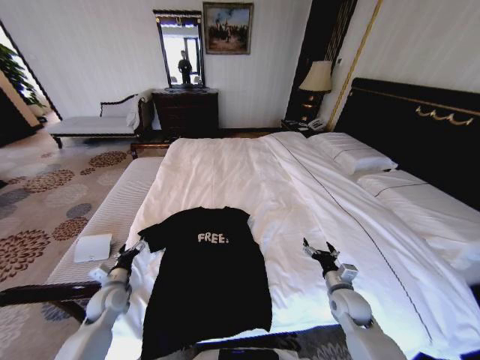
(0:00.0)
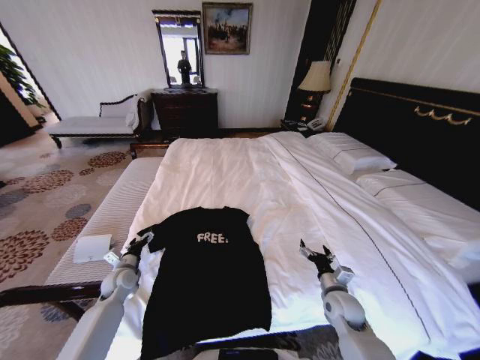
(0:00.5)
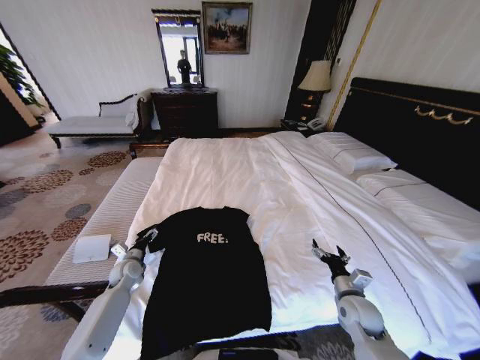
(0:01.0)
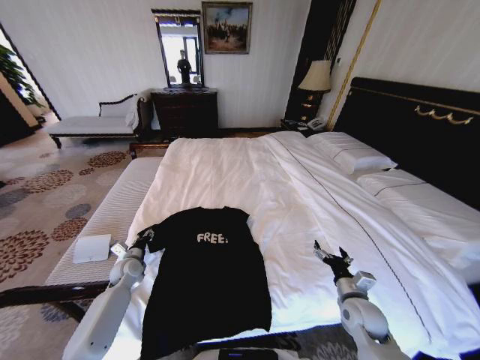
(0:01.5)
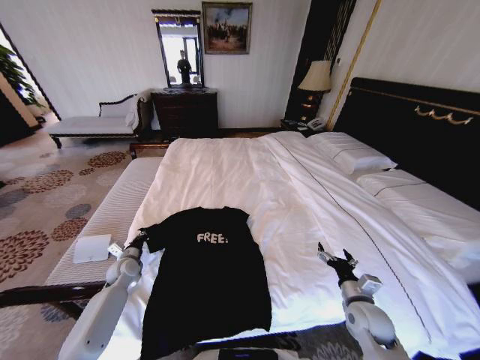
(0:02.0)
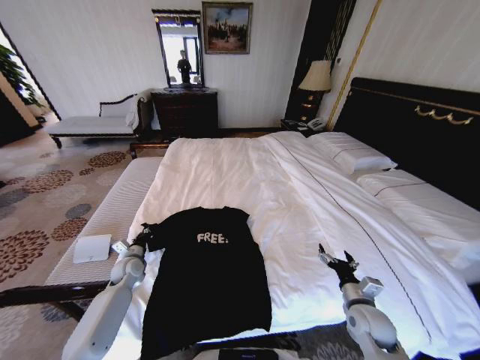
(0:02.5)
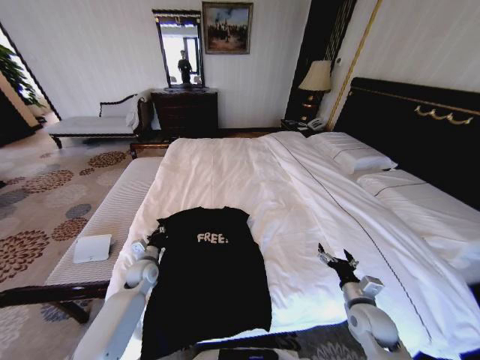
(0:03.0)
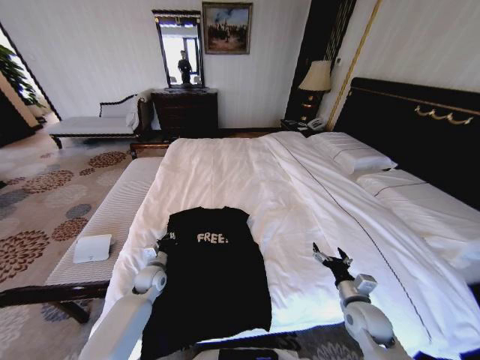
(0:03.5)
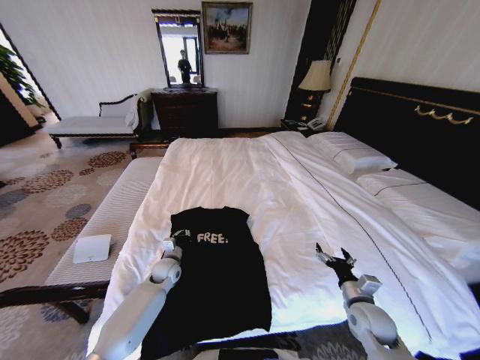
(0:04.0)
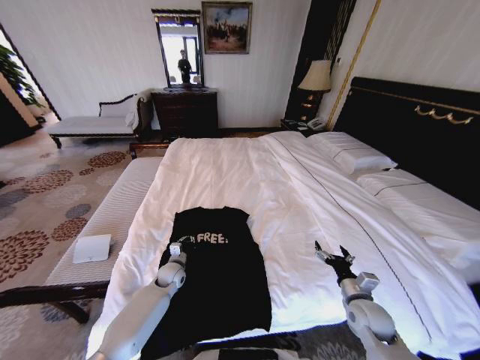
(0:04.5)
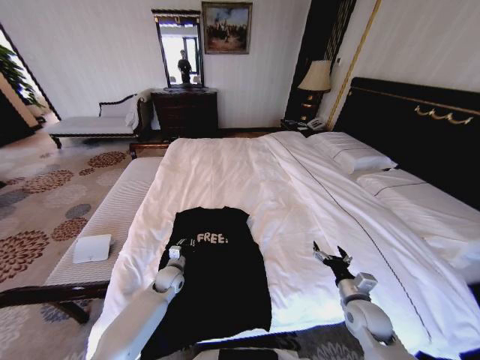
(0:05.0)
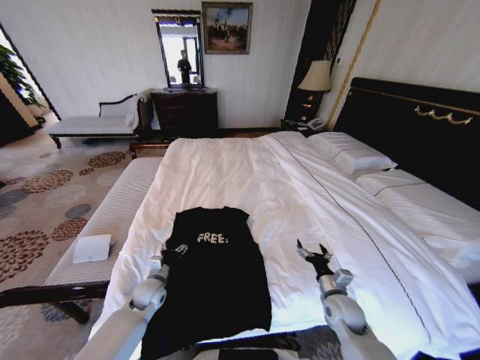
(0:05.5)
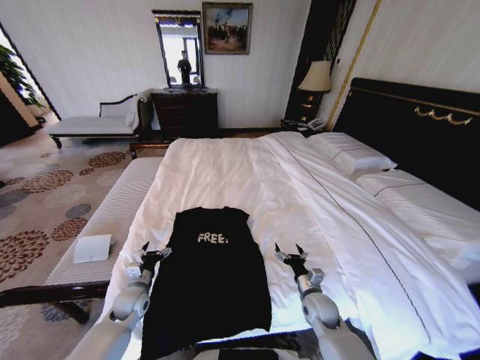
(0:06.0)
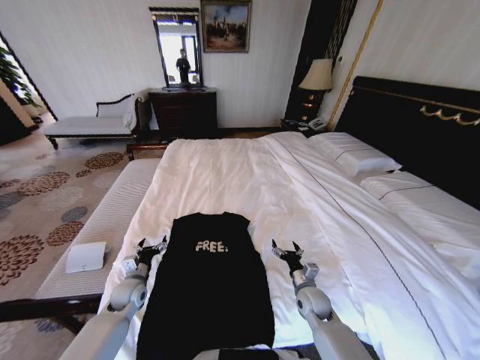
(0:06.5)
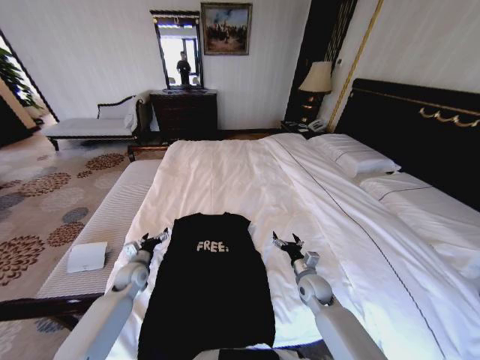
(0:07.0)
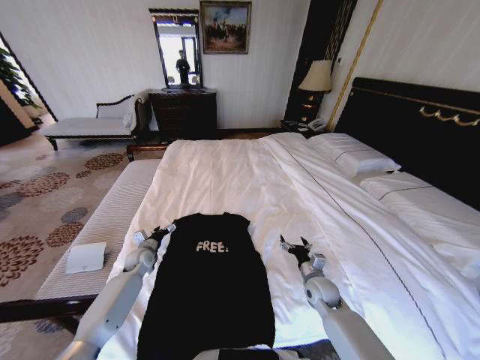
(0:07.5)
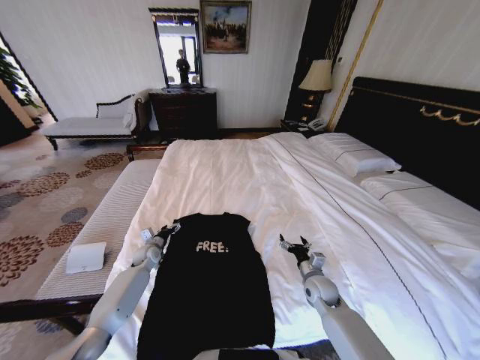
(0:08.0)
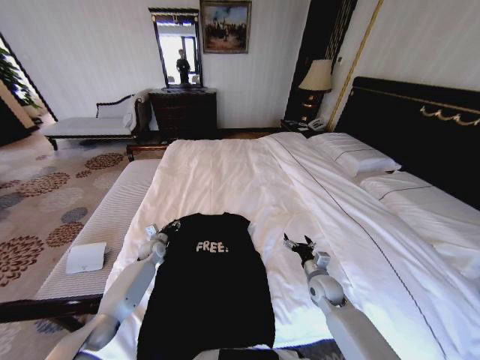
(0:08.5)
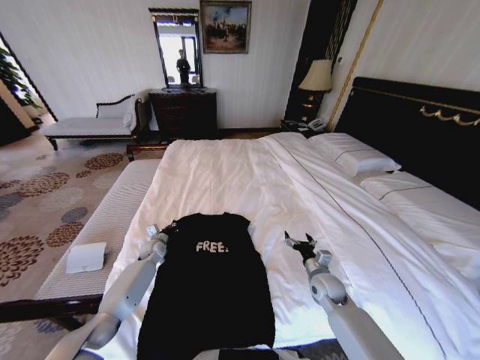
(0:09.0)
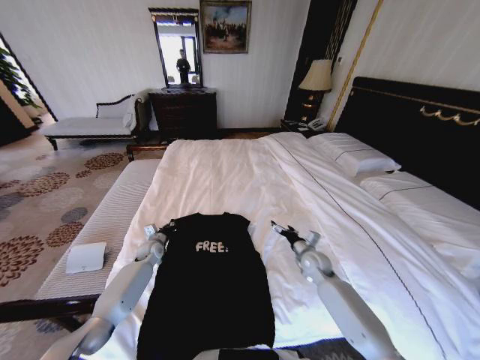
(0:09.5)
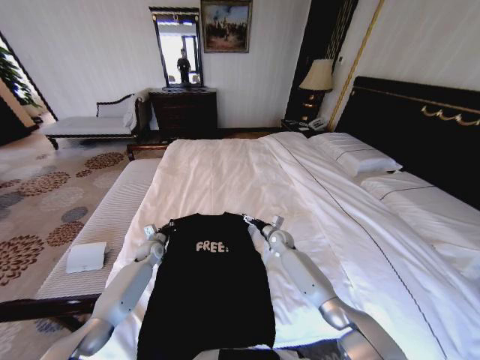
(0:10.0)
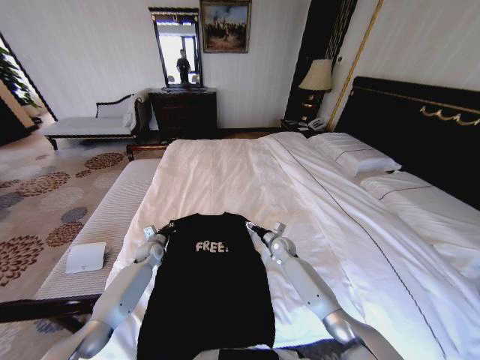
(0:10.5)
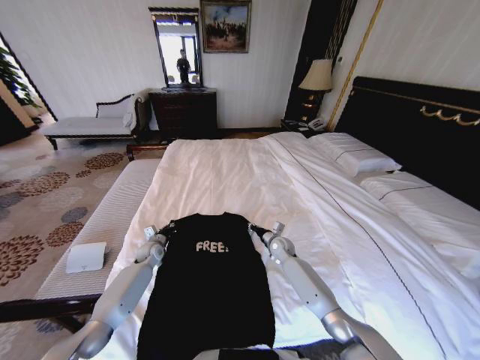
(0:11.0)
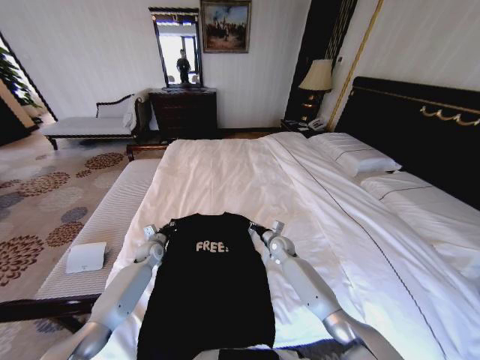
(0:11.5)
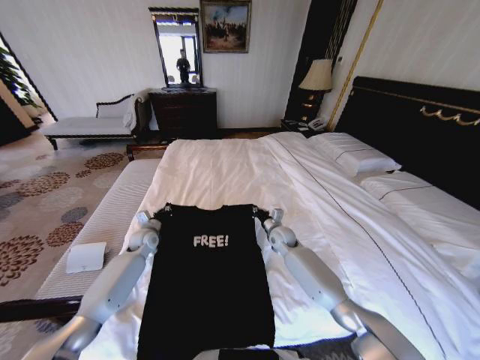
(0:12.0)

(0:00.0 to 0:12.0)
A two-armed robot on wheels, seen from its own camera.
Task of the whole recording: Fold the clothes on the bed.
0:00.0 - 0:02.0: The left gripper heads forward, covering approximately 10 cm, and closes. Meanwhile the right gripper moves roughly 5 cm.
0:02.0 - 0:04.0: The left gripper goes some 15 cm to the right.
0:04.0 - 0:06.0: The right gripper moves to the left and downward, some 10 cm; the left gripper travels backward and to the left by approximately 15 cm, and opens.
0:06.0 - 0:08.0: The right gripper heads forward, covering some 5 cm, while the left gripper moves forward, approximately 15 cm.
0:08.0 - 0:10.0: The right gripper moves forward and to the left, roughly 20 cm; the left gripper closes up.
0:10.0 - 0:12.0: The left gripper heads upward, covering some 10 cm. Meanwhile the right gripper shifts by some 5 cm, and closes up.

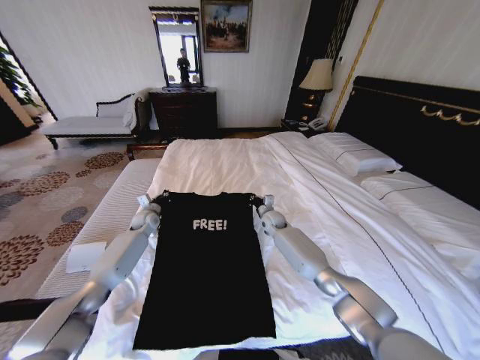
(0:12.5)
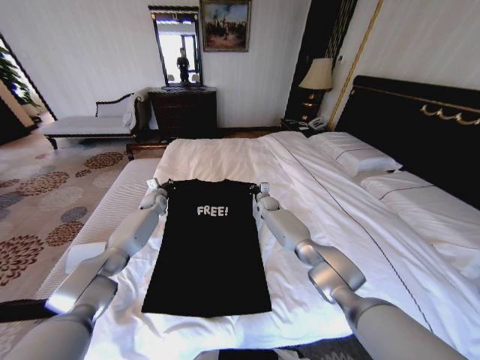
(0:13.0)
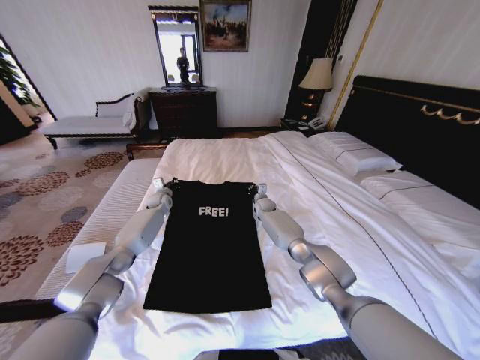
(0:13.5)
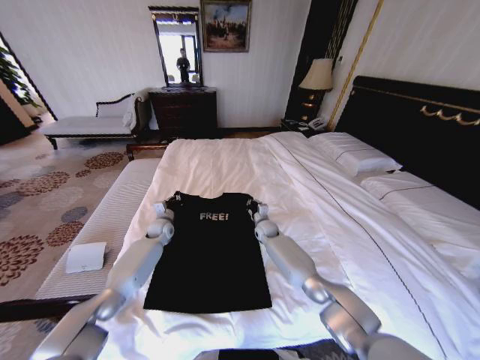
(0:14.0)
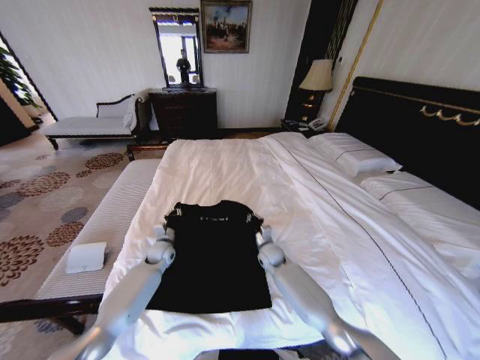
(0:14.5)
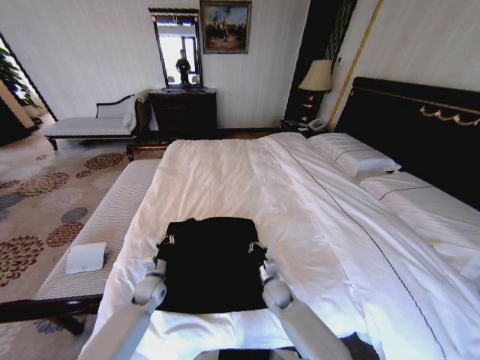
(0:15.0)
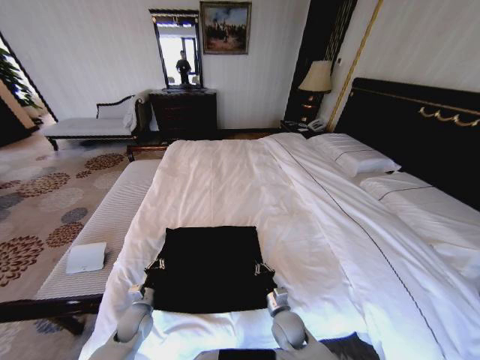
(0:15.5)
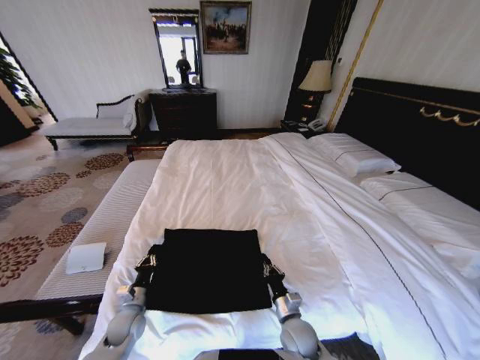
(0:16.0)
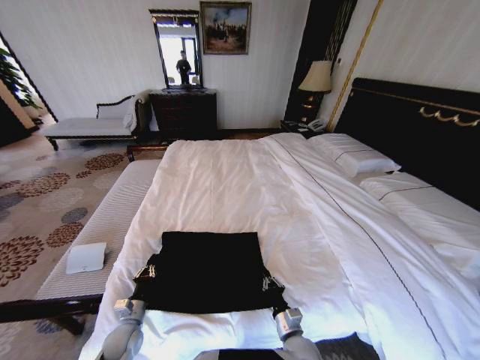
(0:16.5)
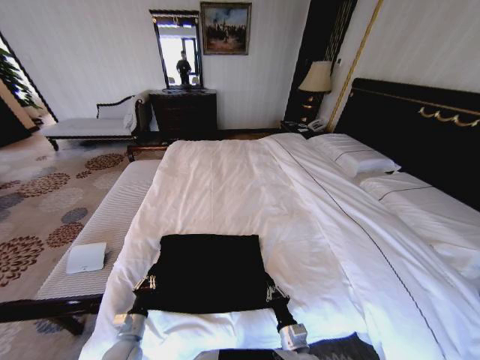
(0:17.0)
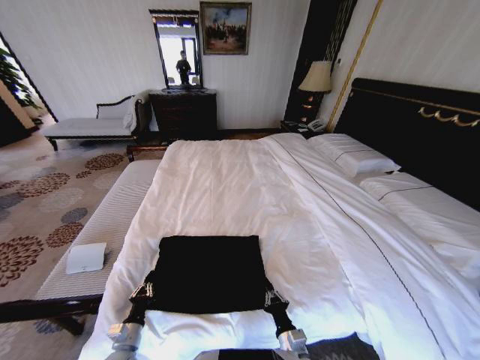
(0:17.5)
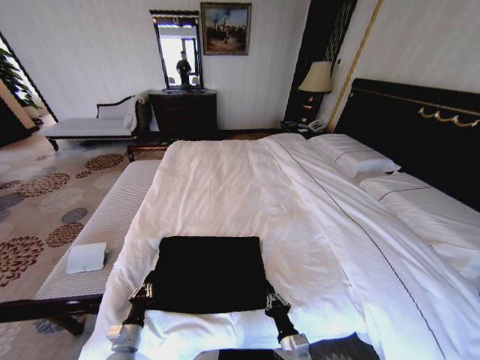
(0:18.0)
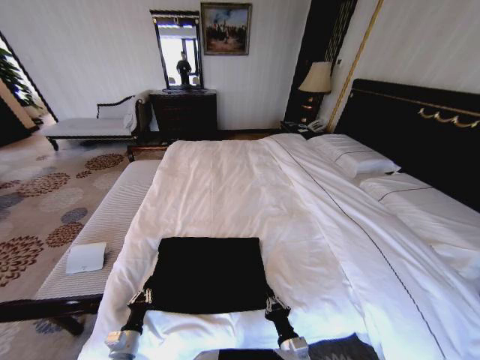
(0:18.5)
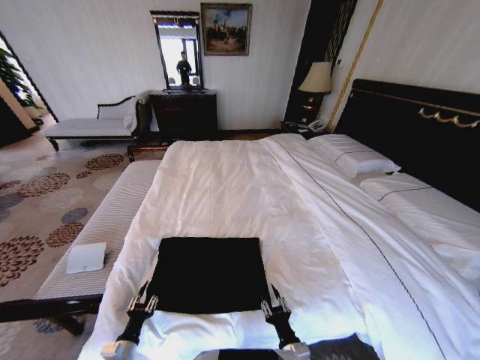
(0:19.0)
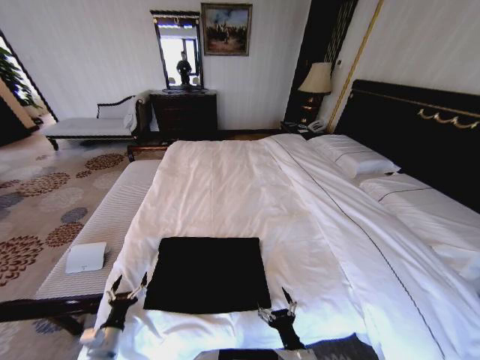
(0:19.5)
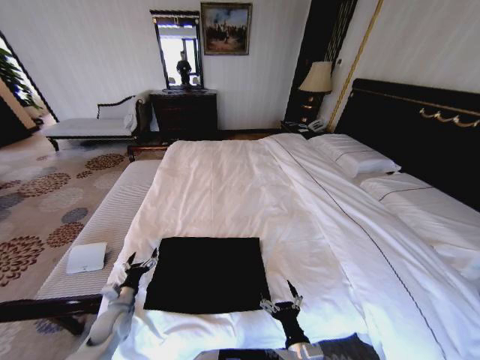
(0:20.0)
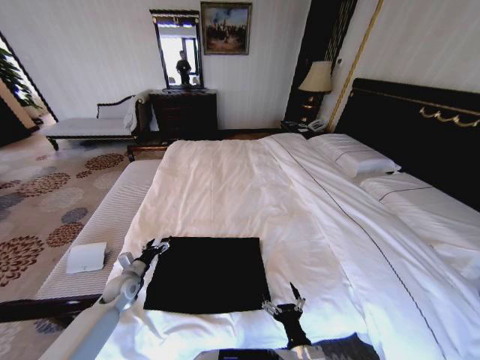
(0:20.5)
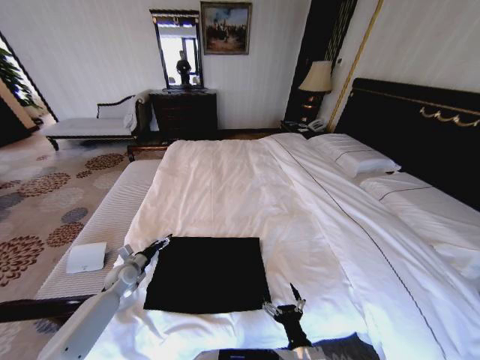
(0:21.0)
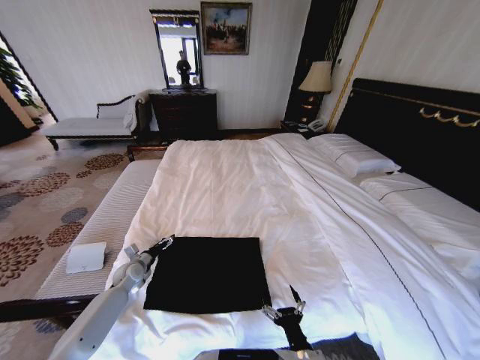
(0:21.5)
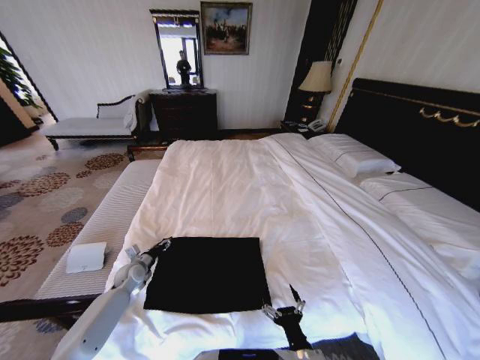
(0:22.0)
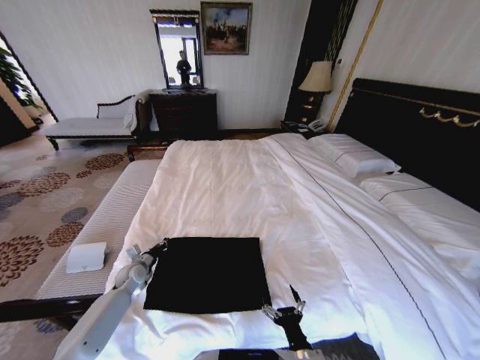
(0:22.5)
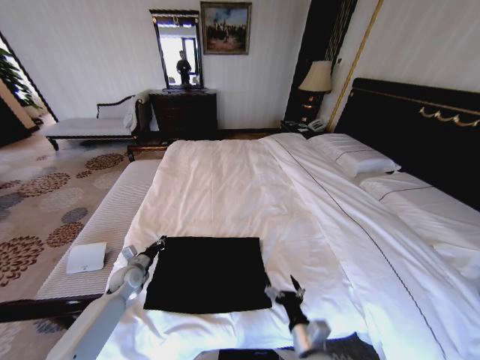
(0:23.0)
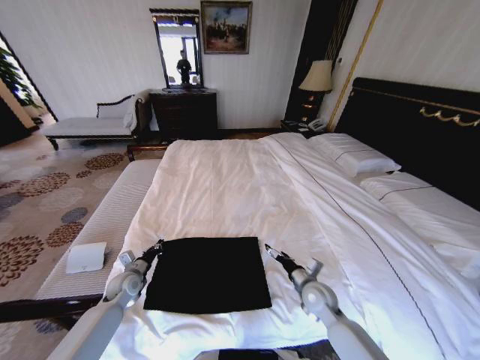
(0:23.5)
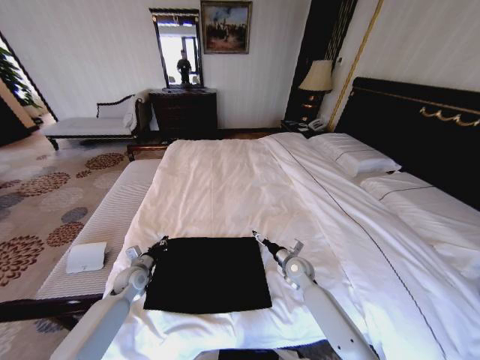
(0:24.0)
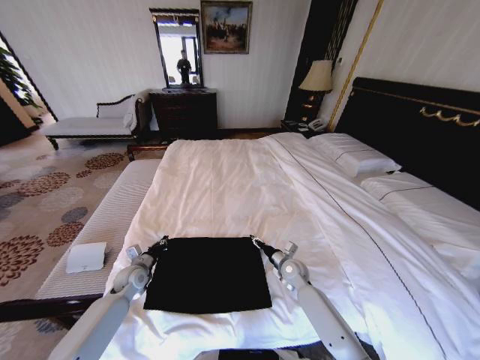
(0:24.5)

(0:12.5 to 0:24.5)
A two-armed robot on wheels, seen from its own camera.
Task of the whole recording: Fold the clothes on the bed.
0:12.5 - 0:14.5: The left gripper travels backward, downward and to the right by some 15 cm; the right gripper moves backward and downward, about 15 cm.
0:14.5 - 0:16.5: The grippers both shift backward by about 25 cm.
0:16.5 - 0:18.5: The two grippers go some 5 cm backward.
0:18.5 - 0:20.5: The left gripper goes about 20 cm forward, and opens, while the right gripper opens up.
0:20.5 - 0:22.5: The left gripper closes its fingers.
0:22.5 - 0:24.5: The right gripper travels forward by approximately 30 cm.

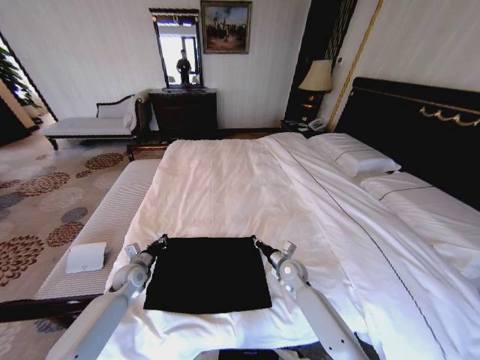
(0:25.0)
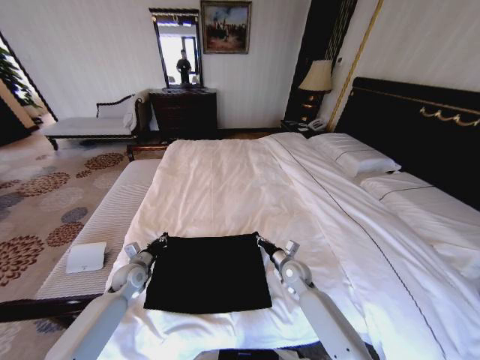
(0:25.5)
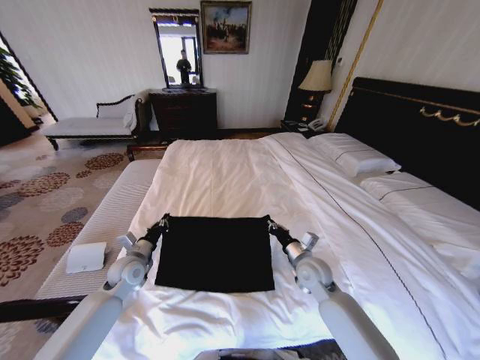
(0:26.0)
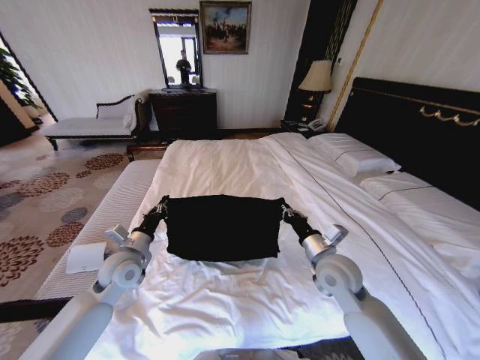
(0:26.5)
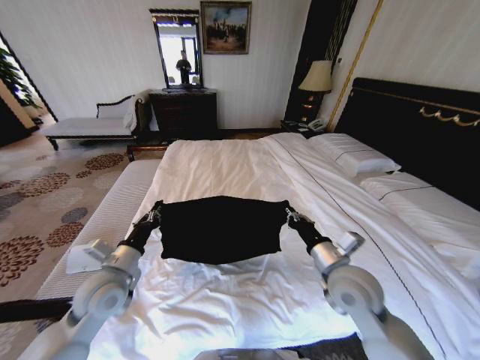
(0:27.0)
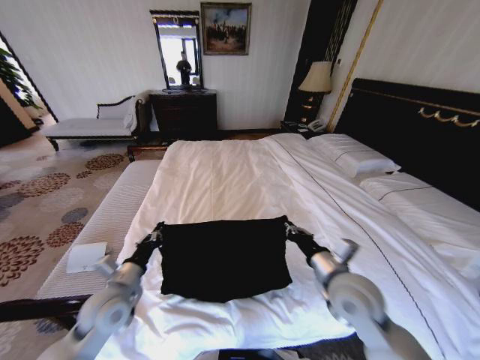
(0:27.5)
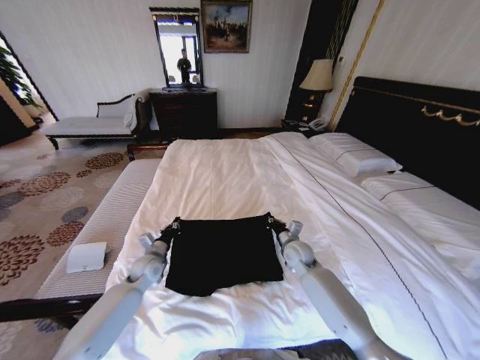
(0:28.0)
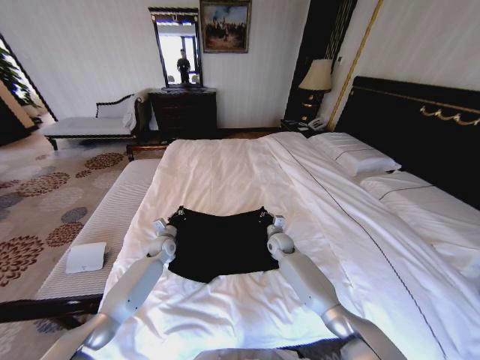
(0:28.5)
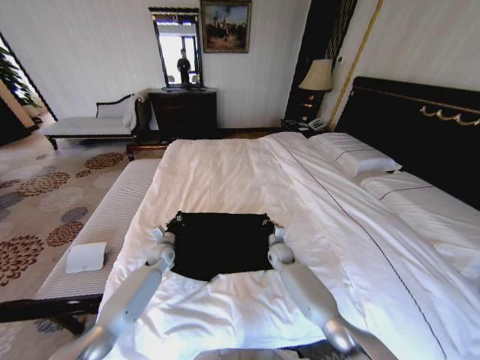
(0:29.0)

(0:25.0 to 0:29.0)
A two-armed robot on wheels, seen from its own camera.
Task of the whole recording: Fold the clothes on the bed.
0:25.0 - 0:27.0: Both grippers move upward and backward, some 25 cm.
0:27.0 - 0:29.0: The two grippers go some 30 cm downward and forward.
